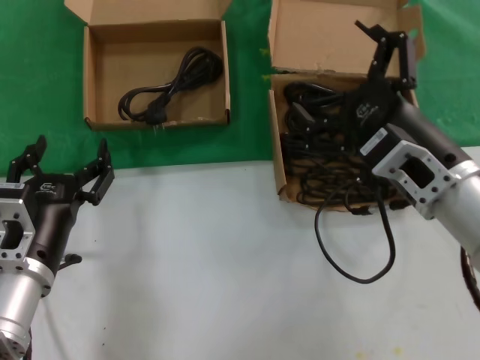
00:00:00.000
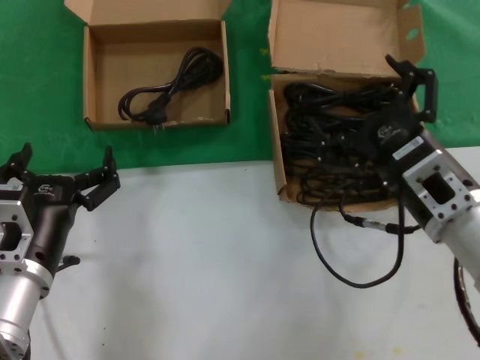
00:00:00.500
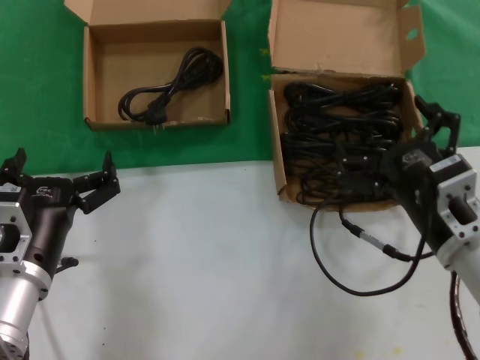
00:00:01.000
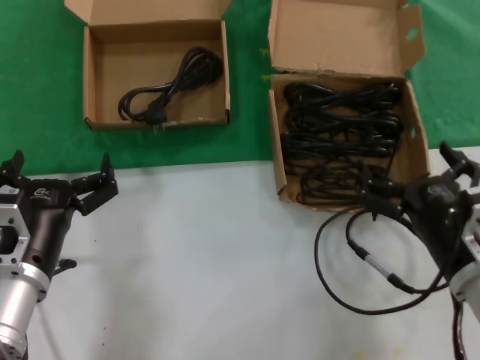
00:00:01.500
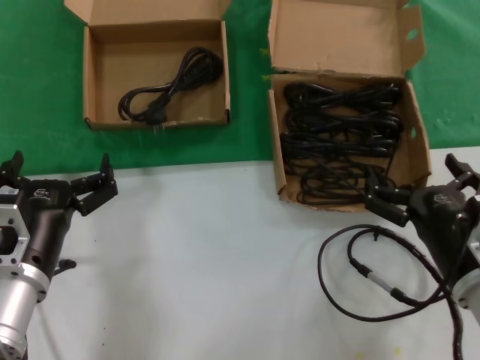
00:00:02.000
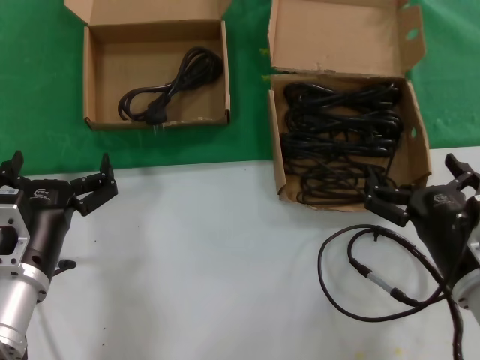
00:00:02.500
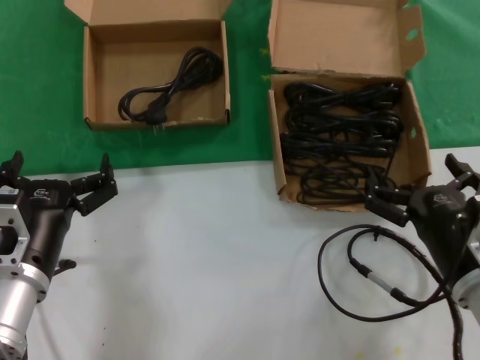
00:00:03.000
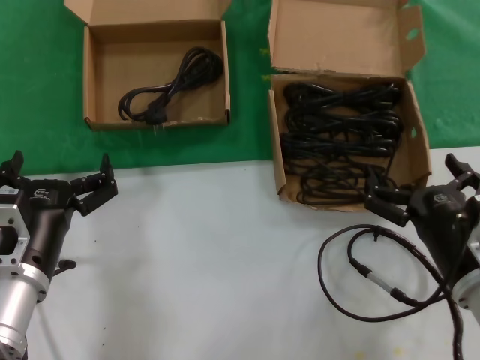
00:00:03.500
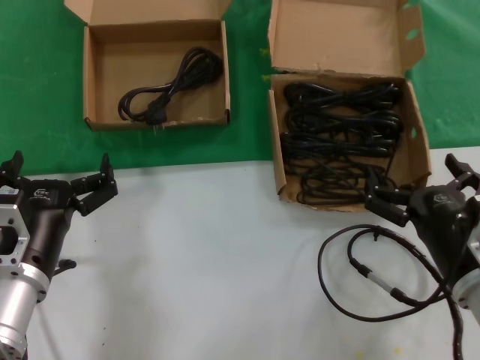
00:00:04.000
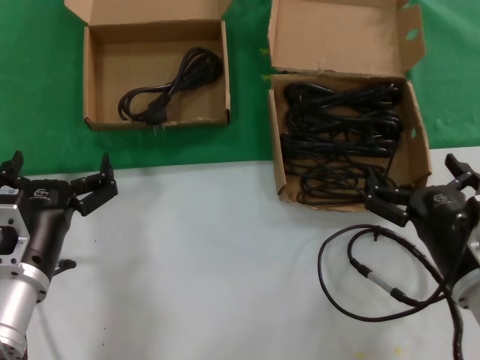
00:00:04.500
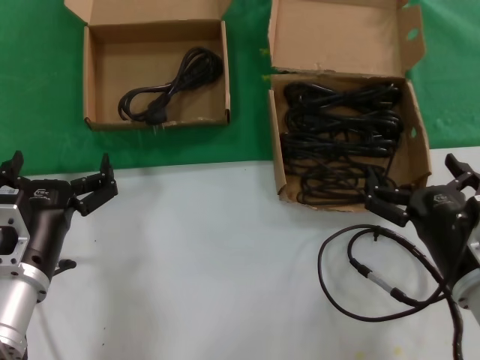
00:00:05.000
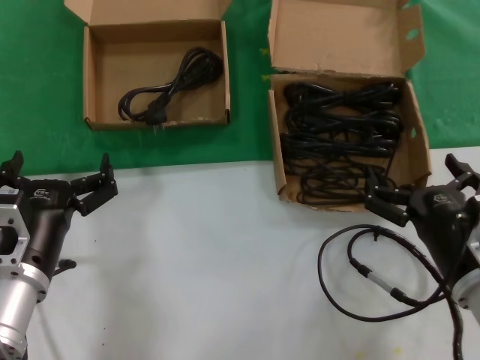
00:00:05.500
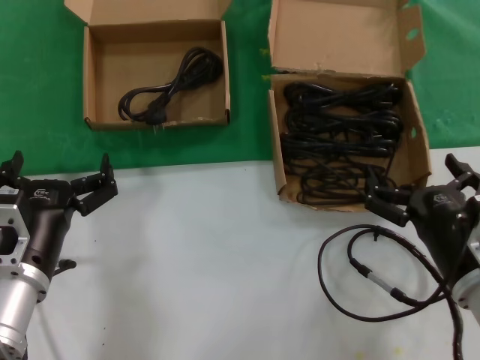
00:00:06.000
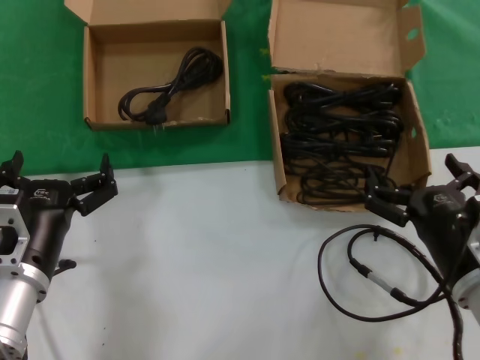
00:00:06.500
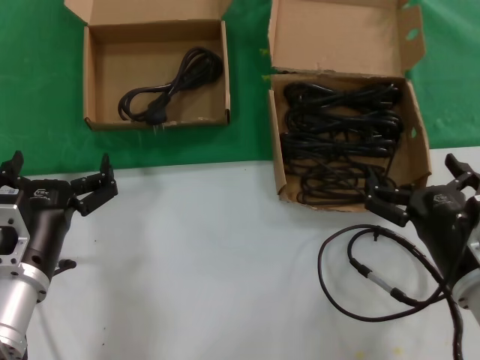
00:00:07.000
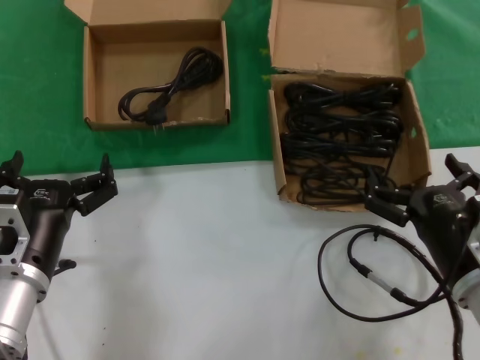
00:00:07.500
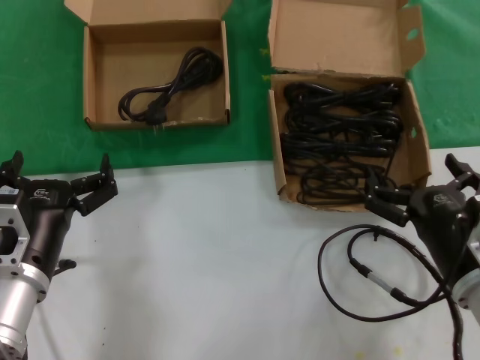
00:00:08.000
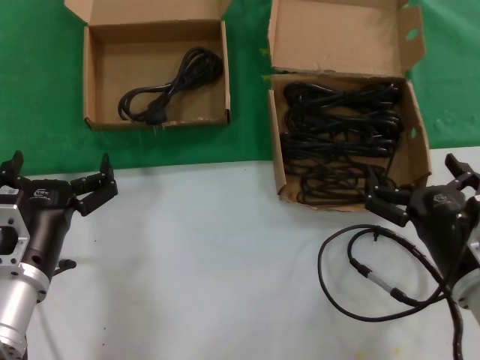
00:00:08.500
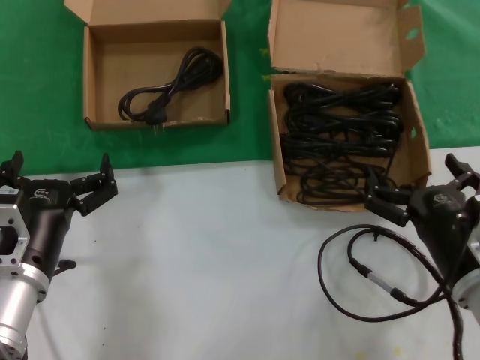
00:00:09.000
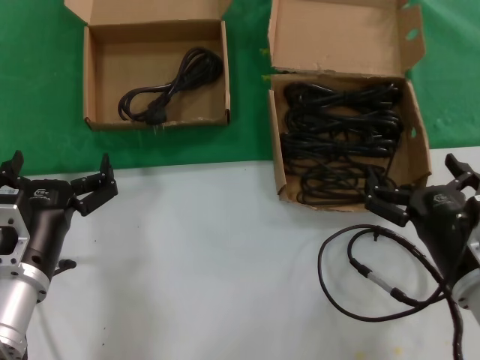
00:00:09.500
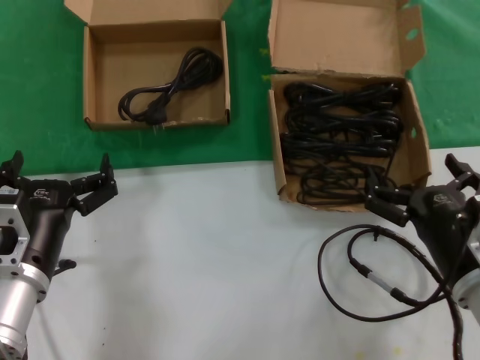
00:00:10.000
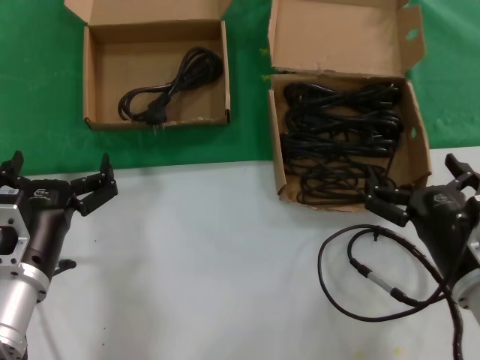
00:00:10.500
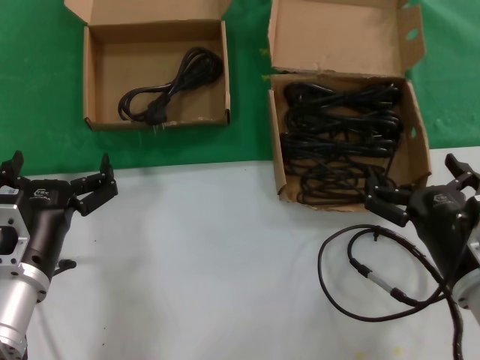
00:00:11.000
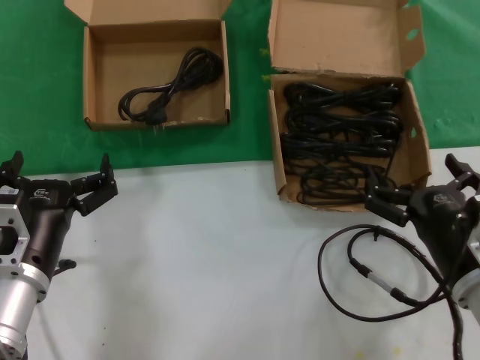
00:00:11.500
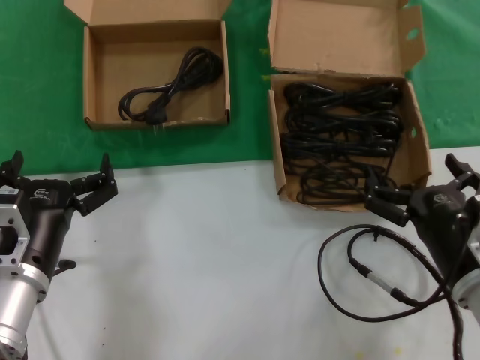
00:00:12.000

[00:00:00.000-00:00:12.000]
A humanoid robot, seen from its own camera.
Task of the whole recording: take the parts from the box containing them and put them into an empty box.
00:00:00.000 to 00:00:02.000: The right hand moves downward, roughly 10 cm.
00:00:02.000 to 00:00:12.000: Neither hand changes place.

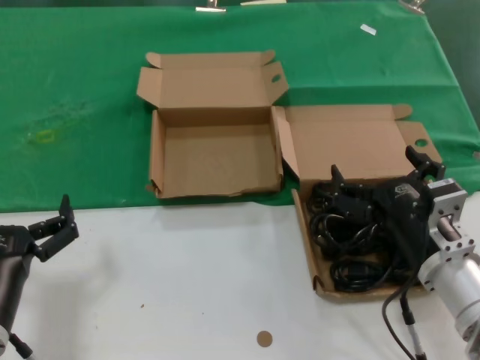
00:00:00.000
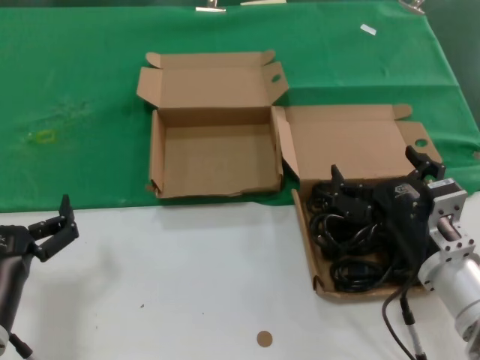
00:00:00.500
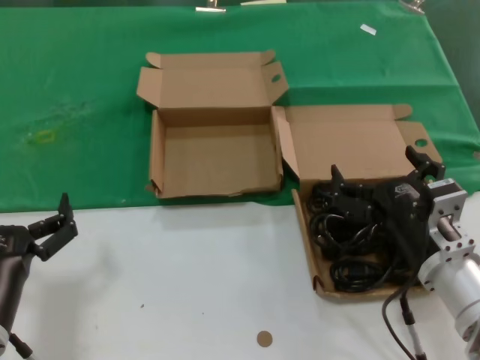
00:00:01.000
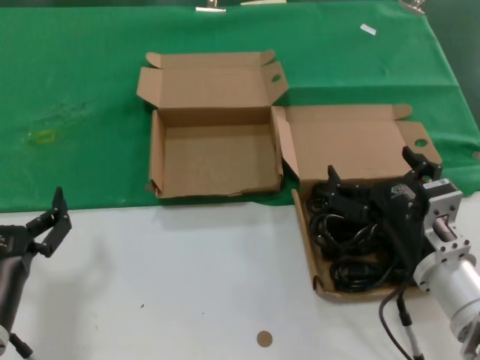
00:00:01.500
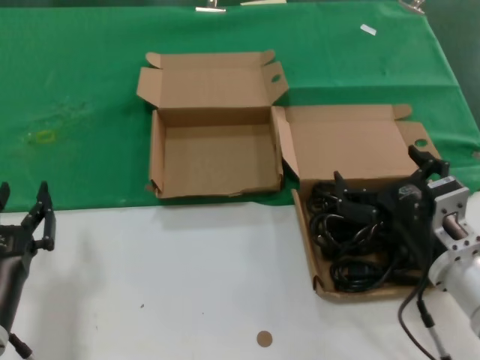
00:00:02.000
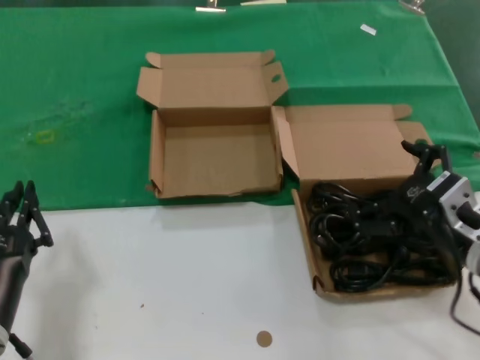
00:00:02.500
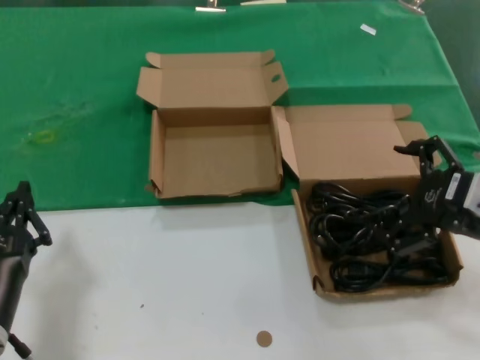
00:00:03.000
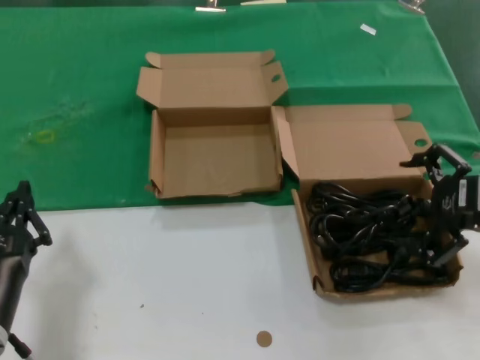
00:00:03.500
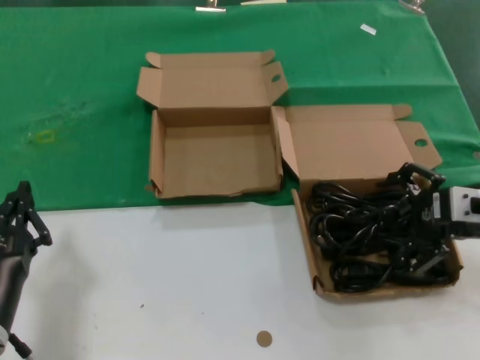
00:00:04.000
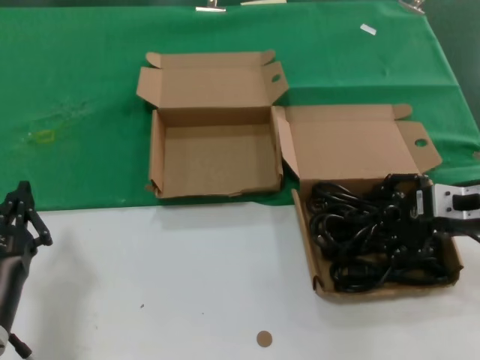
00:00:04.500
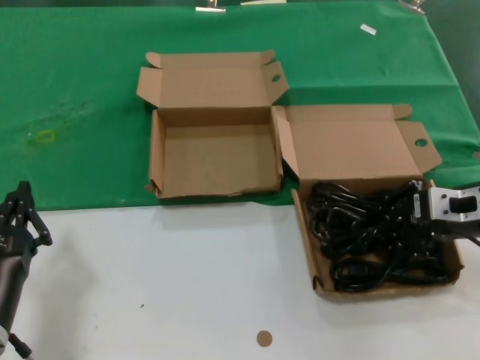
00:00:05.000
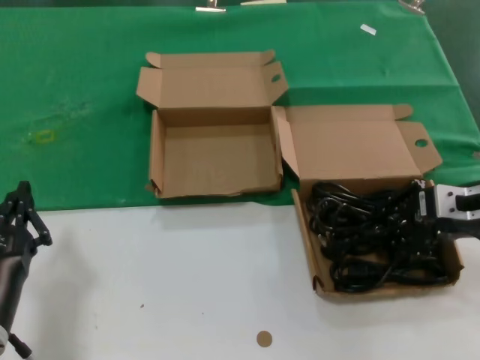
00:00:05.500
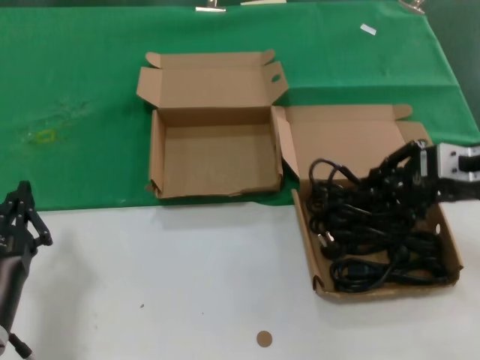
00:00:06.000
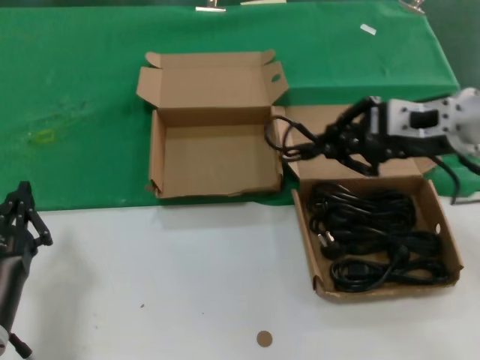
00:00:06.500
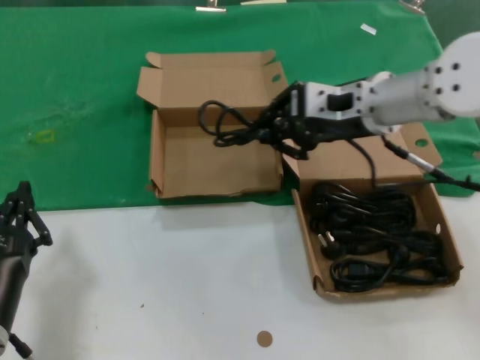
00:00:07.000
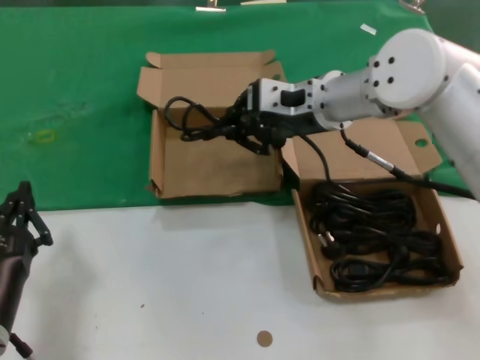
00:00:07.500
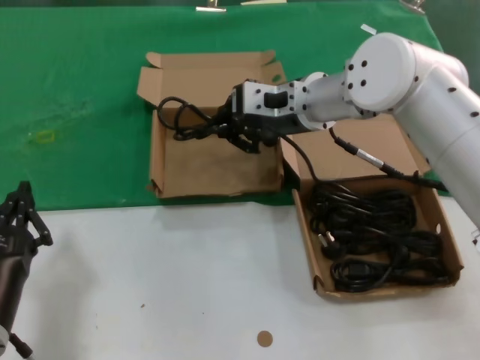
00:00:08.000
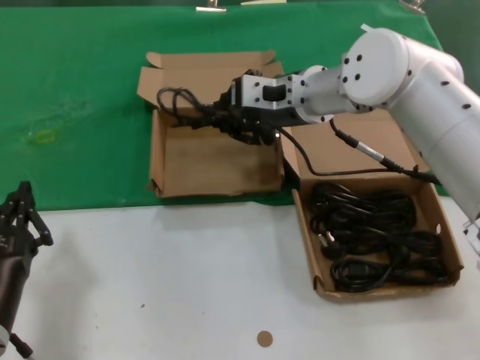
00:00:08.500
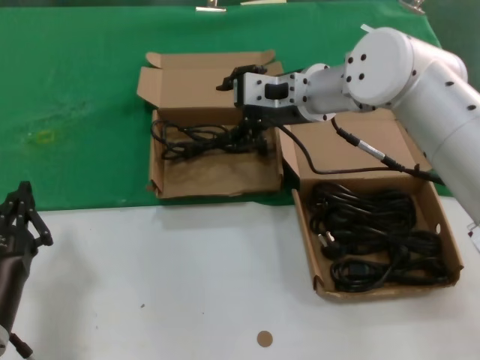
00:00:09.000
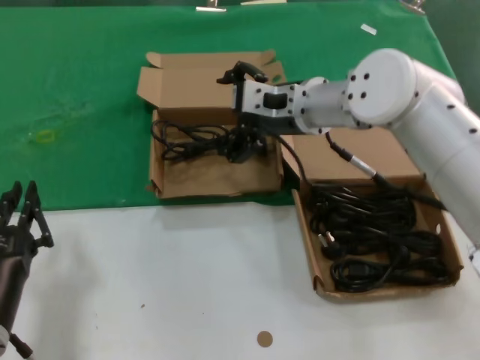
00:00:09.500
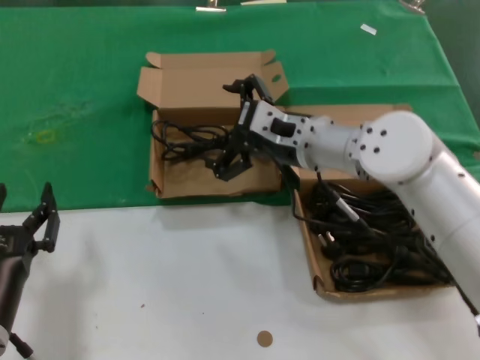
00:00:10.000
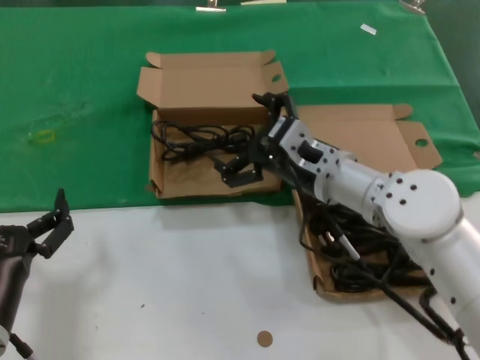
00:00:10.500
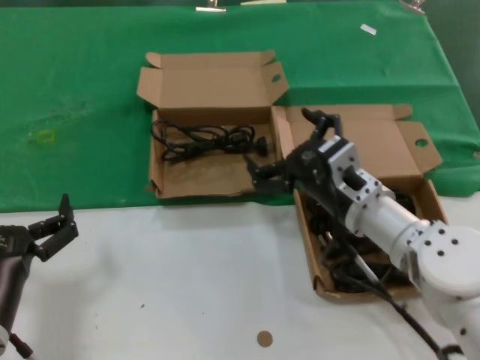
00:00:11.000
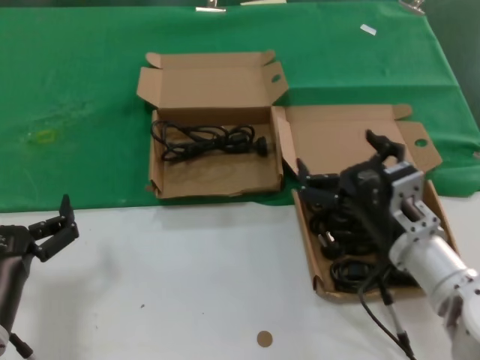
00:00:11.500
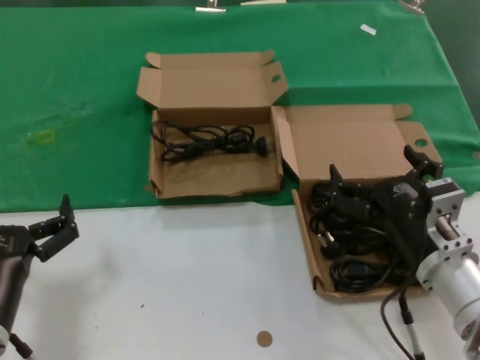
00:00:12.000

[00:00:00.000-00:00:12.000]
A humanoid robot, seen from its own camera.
Task of the whole recording: take the parts from the box containing them and put them into an empty box.
Step, 00:00:00.000 to 00:00:05.000: Grasp the data cable.
Step, 00:00:05.500 to 00:00:08.500: Place the data cable in the another box.
00:00:00.000 to 00:00:02.000: The hands stay close to where they were, moving slightly.
00:00:02.000 to 00:00:04.000: The right hand shifts approximately 15 cm to the right, upward and forward.
00:00:04.000 to 00:00:06.000: The hands stay close to where they were, moving slightly.
00:00:06.000 to 00:00:08.000: The right hand moves to the left and forward, roughly 25 cm.
00:00:08.000 to 00:00:10.000: The right hand is displaced downward by some 5 cm.
00:00:10.000 to 00:00:12.000: The right hand travels backward, downward and to the right by roughly 25 cm.

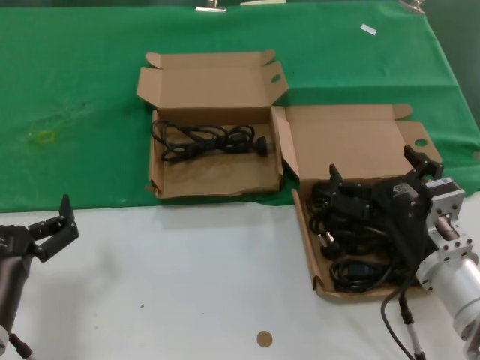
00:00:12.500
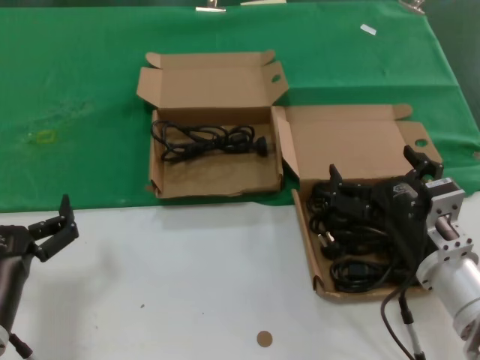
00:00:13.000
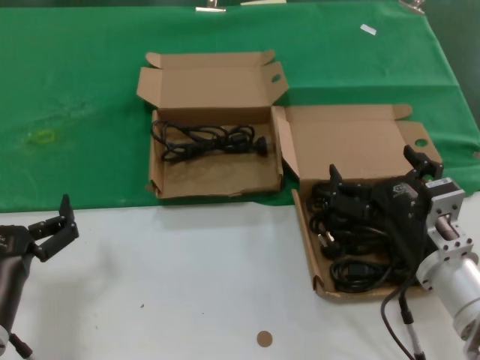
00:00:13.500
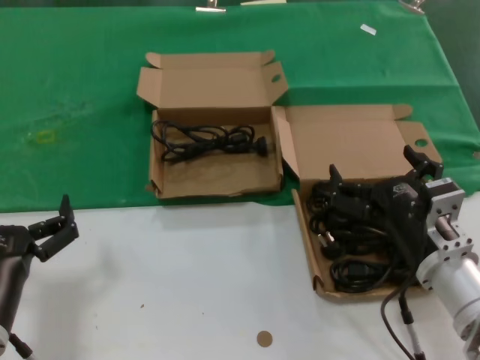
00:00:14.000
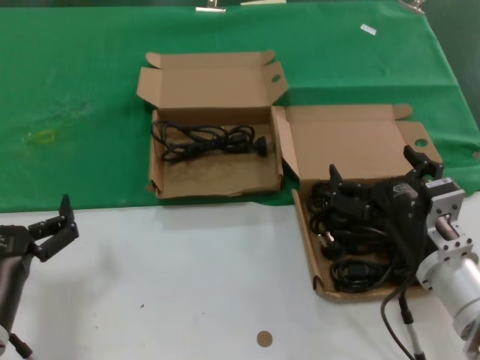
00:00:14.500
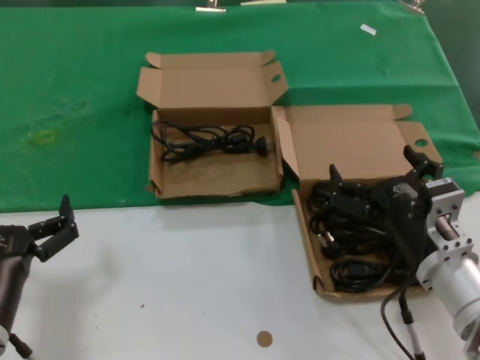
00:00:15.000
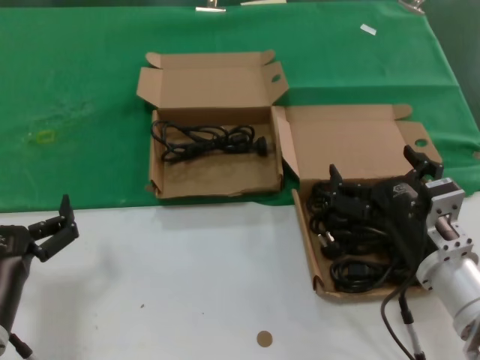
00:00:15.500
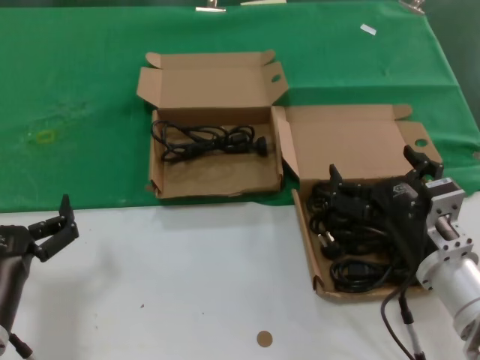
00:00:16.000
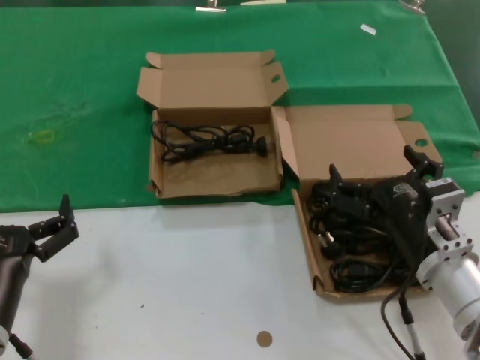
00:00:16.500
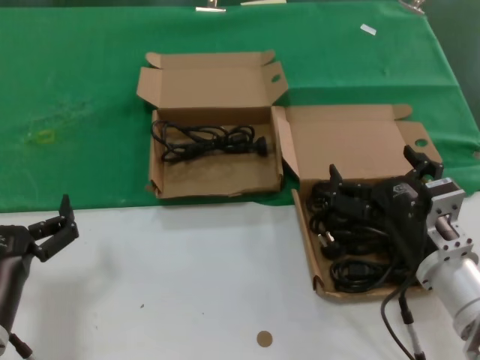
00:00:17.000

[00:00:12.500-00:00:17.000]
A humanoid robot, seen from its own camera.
Task of the whole recording: take the parts from the box containing them and put them into an empty box.
00:00:12.500 to 00:00:17.000: The two hands keep their place.
